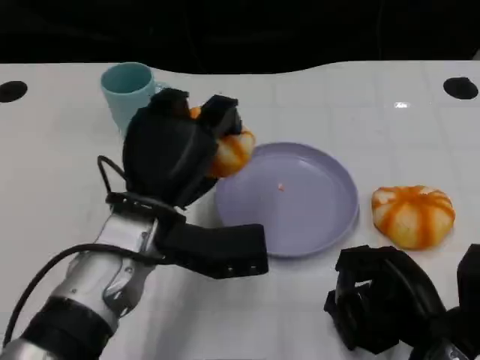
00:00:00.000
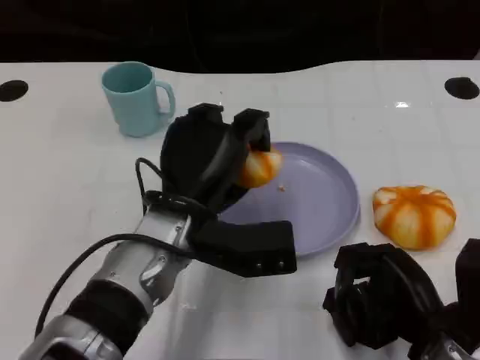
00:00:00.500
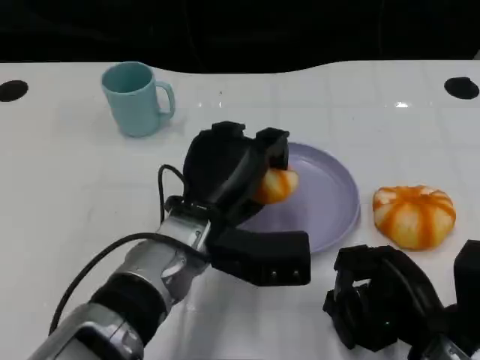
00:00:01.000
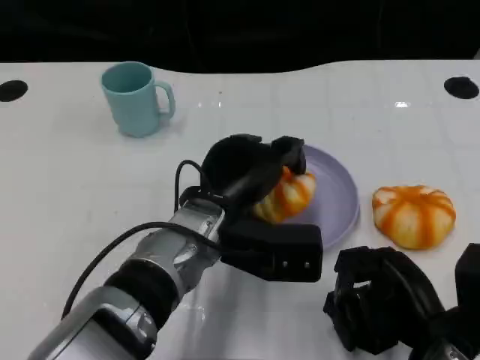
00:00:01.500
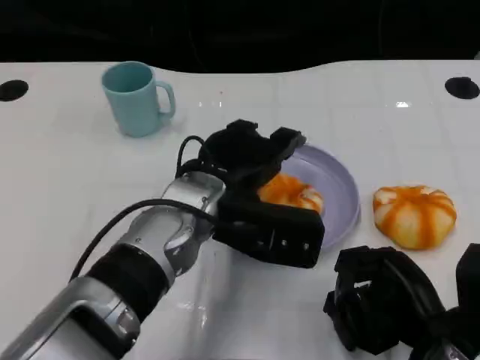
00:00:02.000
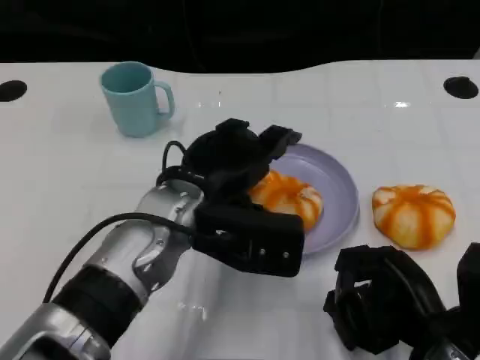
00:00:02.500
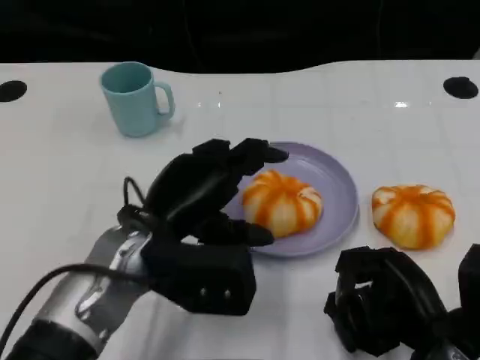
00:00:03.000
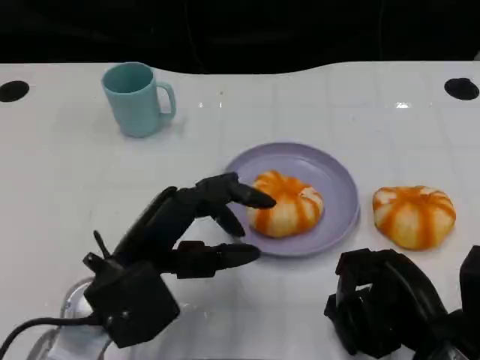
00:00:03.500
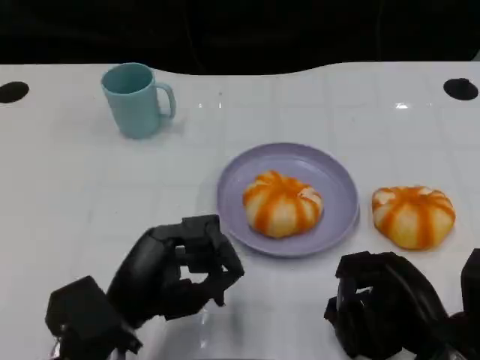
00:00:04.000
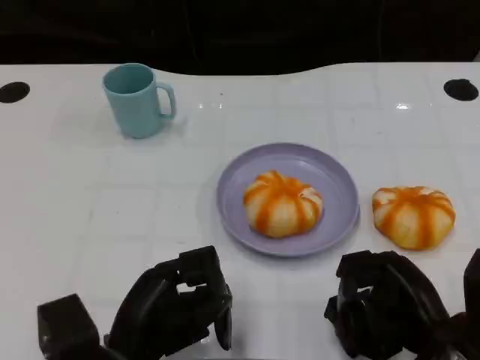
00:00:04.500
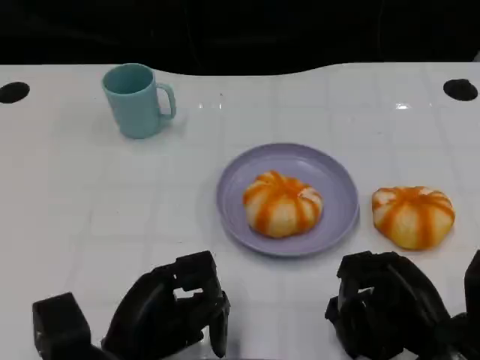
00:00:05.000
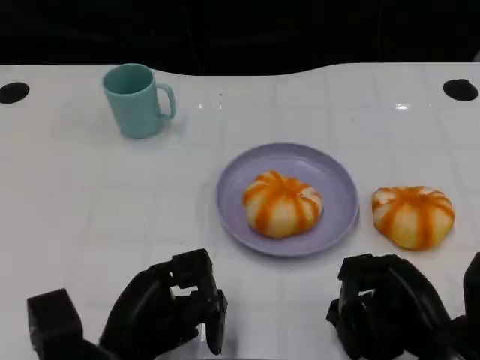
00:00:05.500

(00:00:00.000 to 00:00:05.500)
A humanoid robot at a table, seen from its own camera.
Task of the whole recording: Grasp the bread from the table and place it into the plate.
00:00:00.000 - 00:00:02.000: The left hand shifts approximately 5 cm to the right.
00:00:02.000 - 00:00:03.500: The left hand goes about 10 cm to the left and backward.
00:00:03.500 - 00:00:05.500: The left hand heads downward, covering roughly 5 cm.

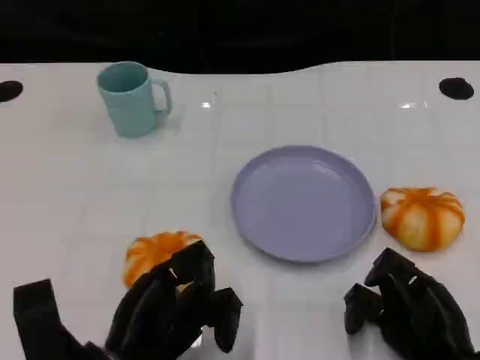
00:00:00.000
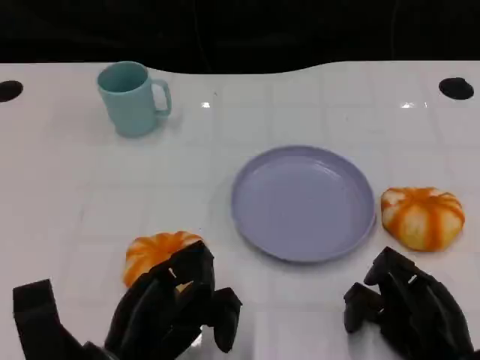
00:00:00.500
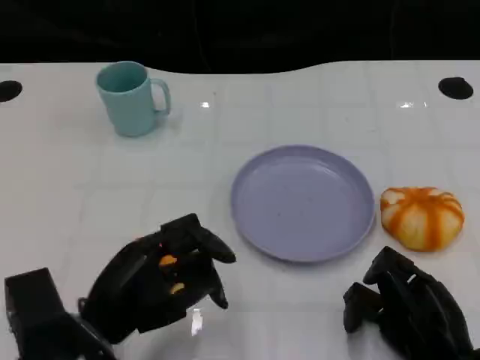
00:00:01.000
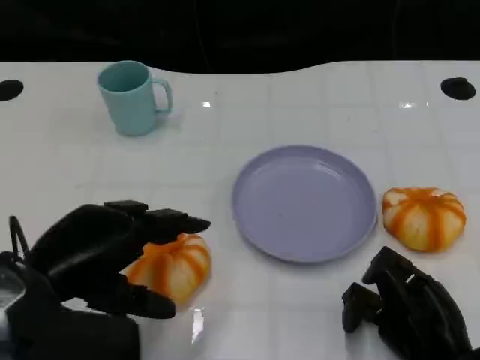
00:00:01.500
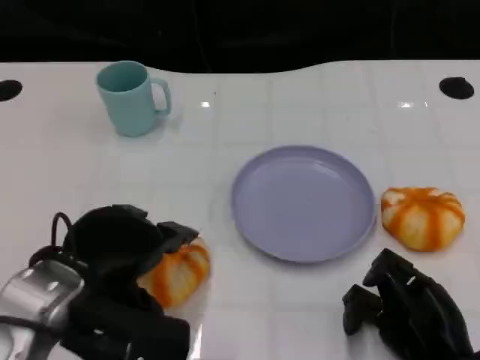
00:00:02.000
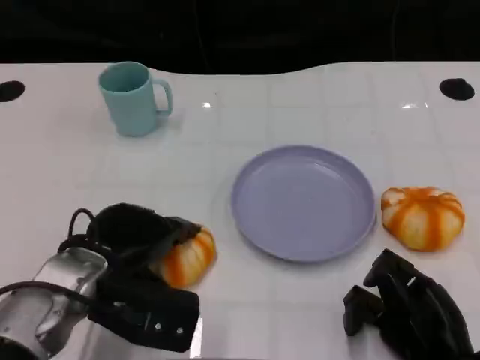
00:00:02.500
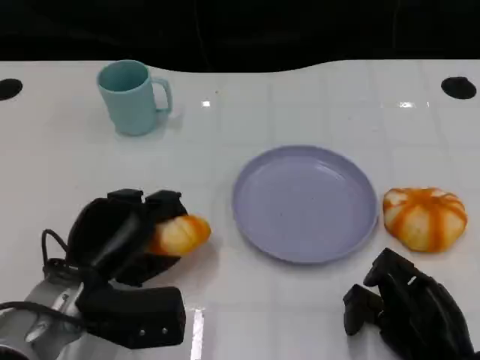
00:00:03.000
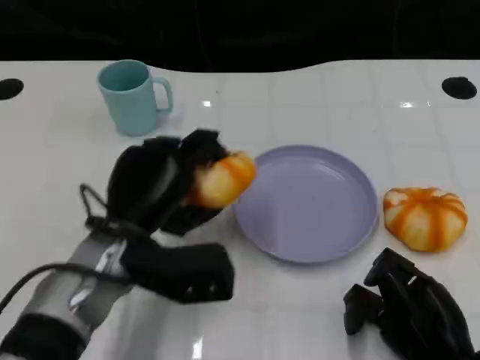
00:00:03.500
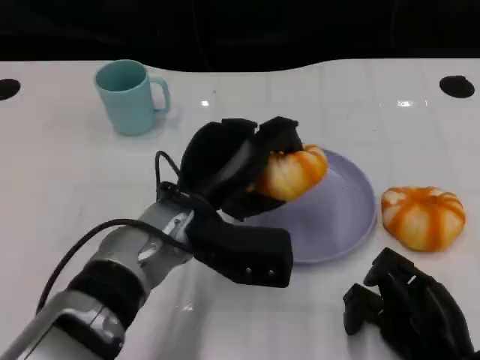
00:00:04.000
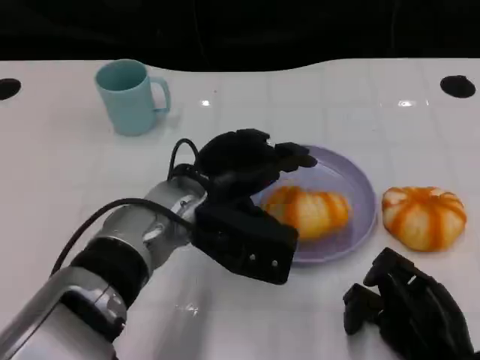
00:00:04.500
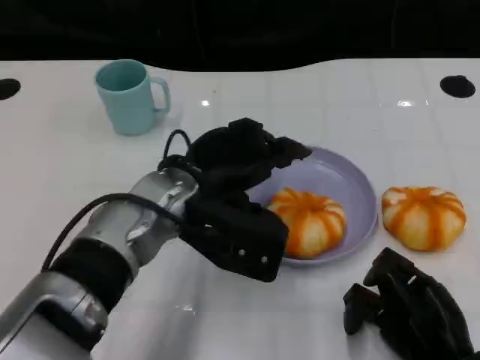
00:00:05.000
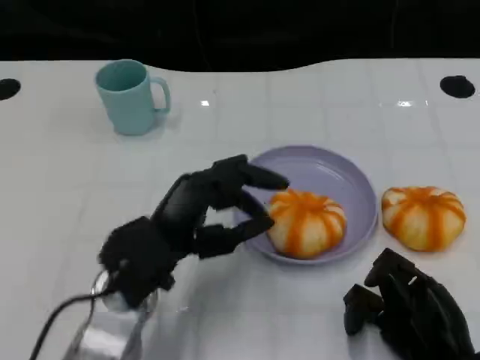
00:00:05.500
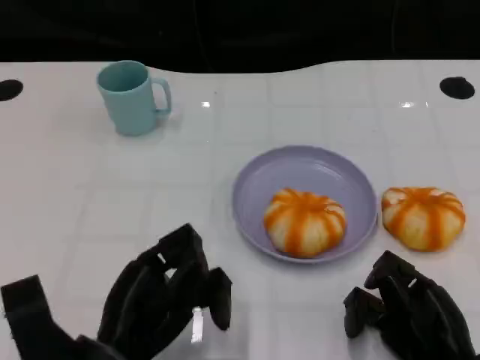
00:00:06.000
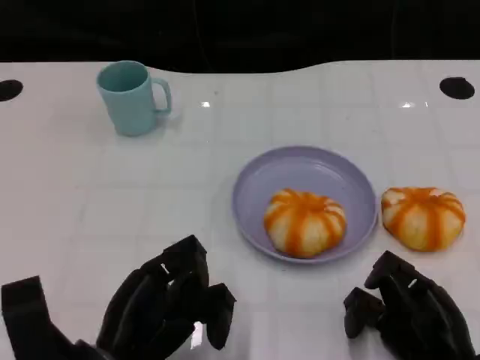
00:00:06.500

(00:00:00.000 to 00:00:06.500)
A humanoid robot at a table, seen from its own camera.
Task of the whole recording: Grasp the bread from the table and place it into the plate.
00:00:00.000 - 00:00:02.000: The left hand travels upward by about 10 cm.
00:00:02.000 - 00:00:04.500: The left hand shifts about 15 cm to the right and forward.
00:00:04.500 - 00:00:06.500: The left hand moves backward, to the left and downward, about 20 cm.

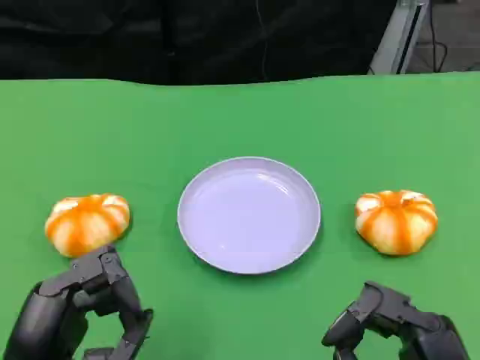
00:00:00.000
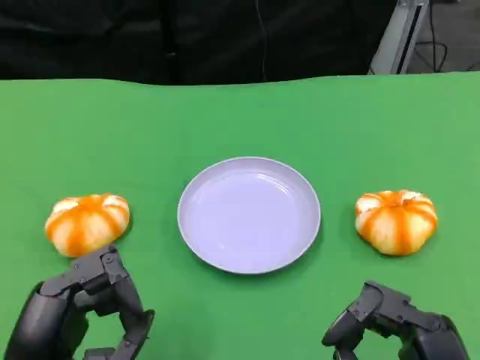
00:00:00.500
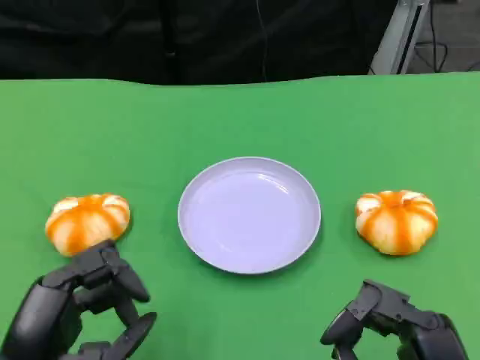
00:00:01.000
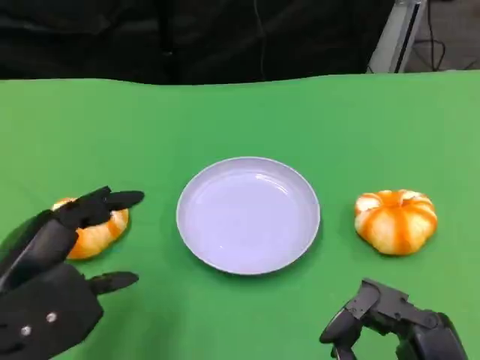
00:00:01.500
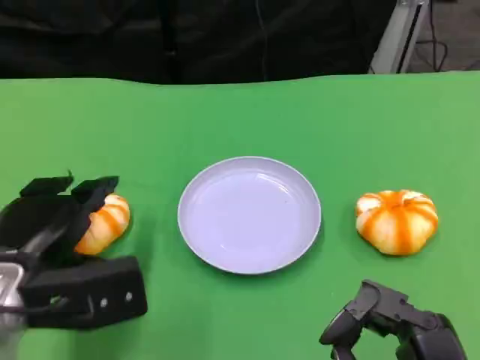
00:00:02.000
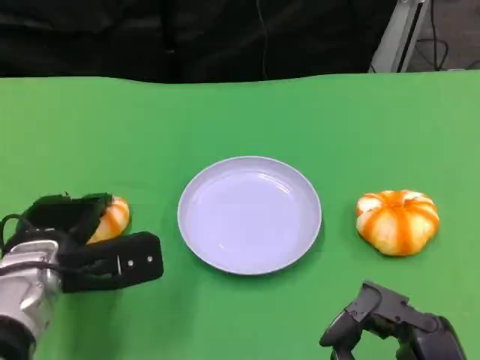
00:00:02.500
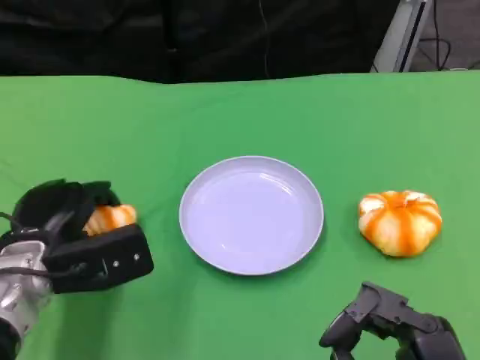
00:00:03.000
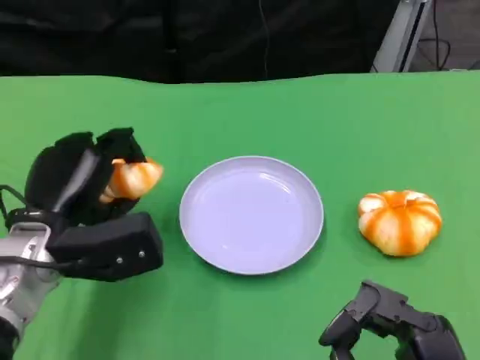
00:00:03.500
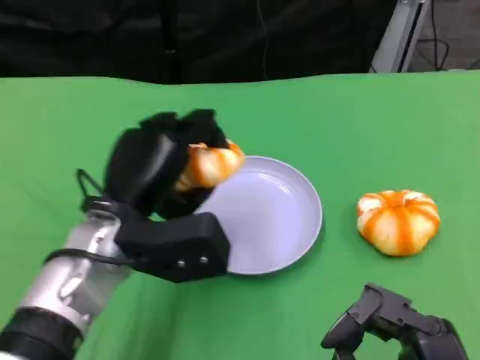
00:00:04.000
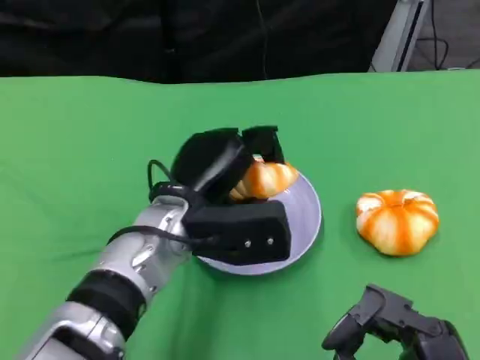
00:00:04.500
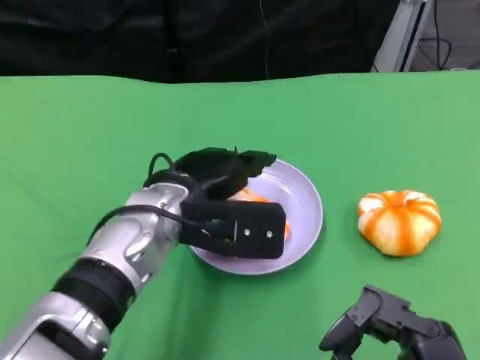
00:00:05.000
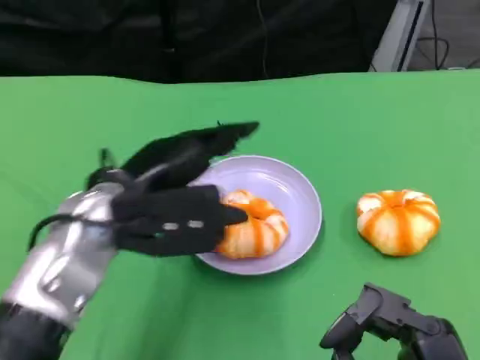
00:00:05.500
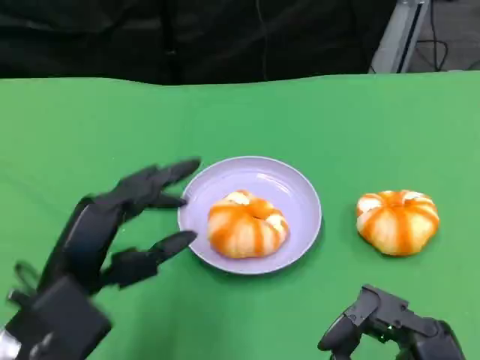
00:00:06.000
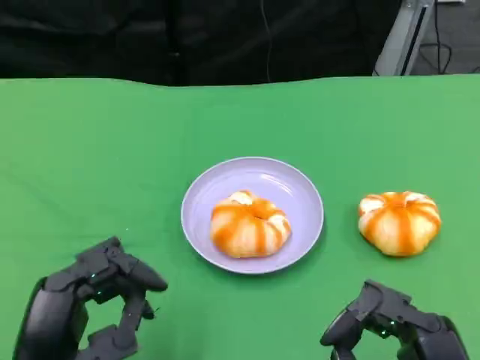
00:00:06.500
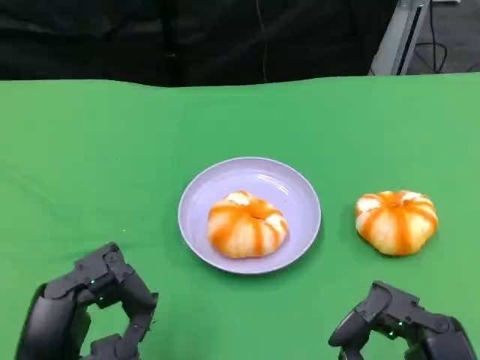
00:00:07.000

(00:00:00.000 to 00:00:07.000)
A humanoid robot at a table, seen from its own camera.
Task of the whole recording: Grasp the bread from the table and place it into the plate.
00:00:00.000 - 00:00:02.000: The left hand shifts approximately 10 cm forward.
00:00:02.000 - 00:00:03.500: The left hand ends up some 5 cm from where it was.
00:00:03.500 - 00:00:05.000: The left hand heads to the right, covering roughly 10 cm.
00:00:05.000 - 00:00:07.000: The left hand travels backward and to the left by some 20 cm.

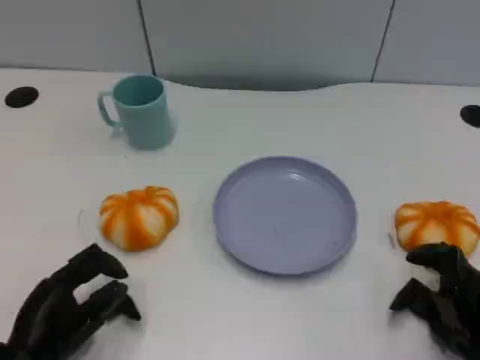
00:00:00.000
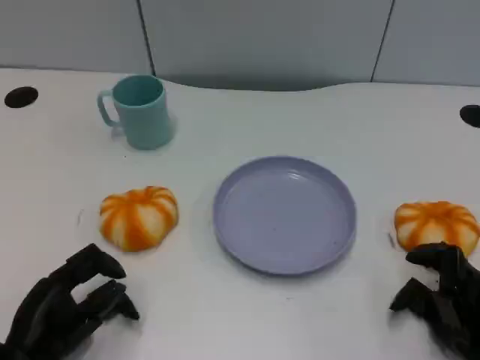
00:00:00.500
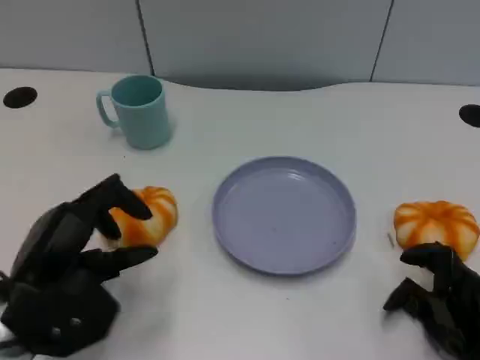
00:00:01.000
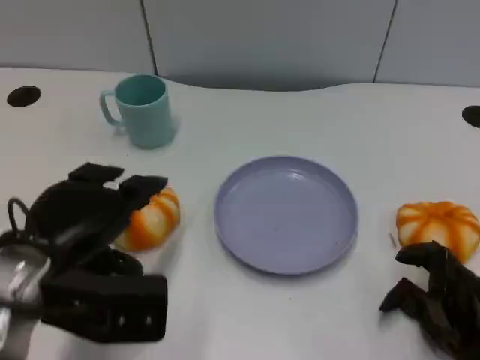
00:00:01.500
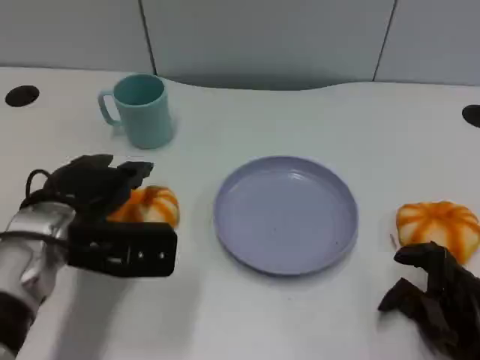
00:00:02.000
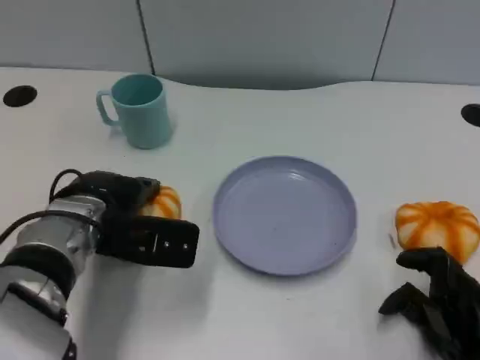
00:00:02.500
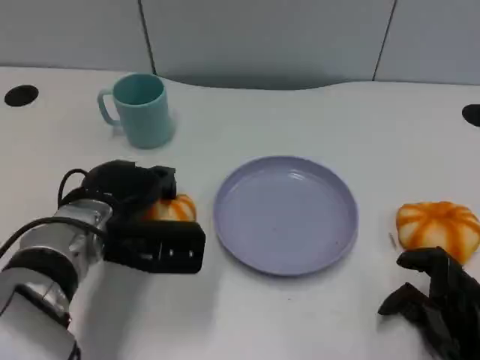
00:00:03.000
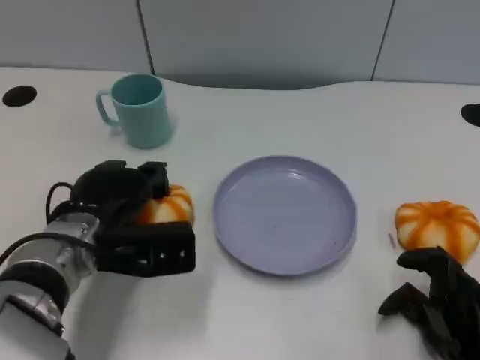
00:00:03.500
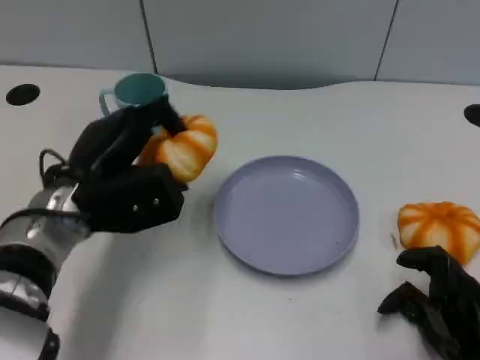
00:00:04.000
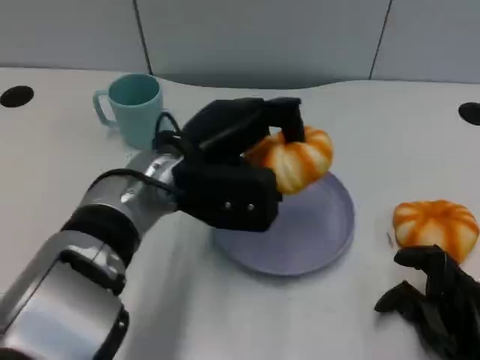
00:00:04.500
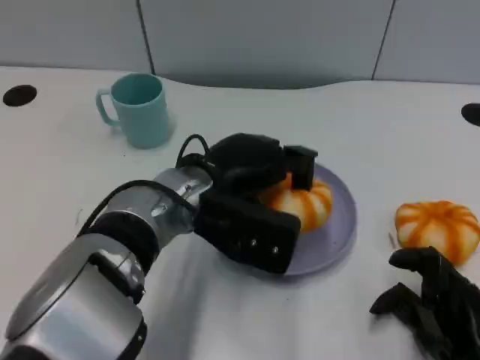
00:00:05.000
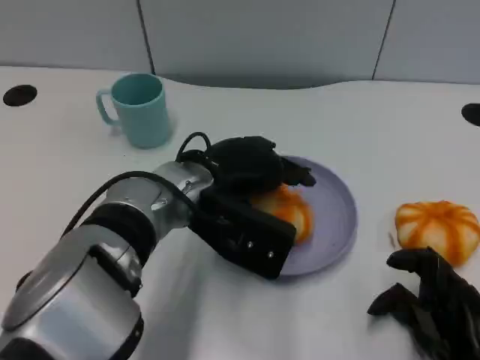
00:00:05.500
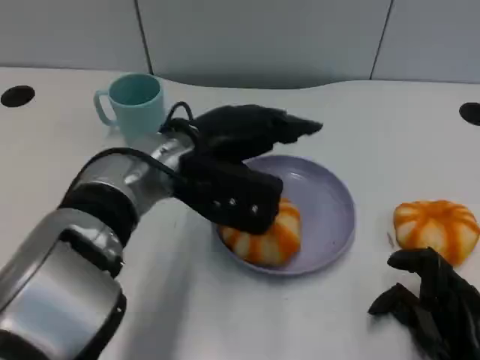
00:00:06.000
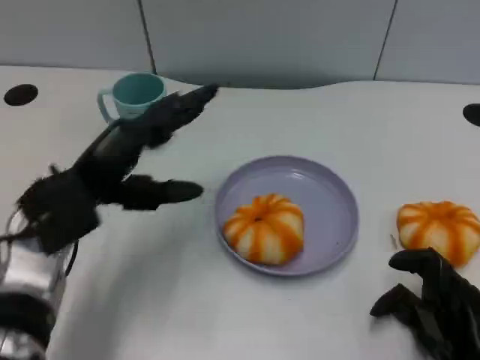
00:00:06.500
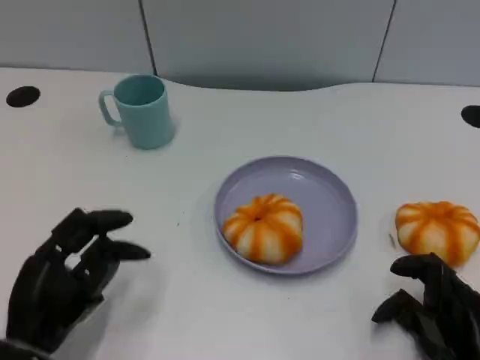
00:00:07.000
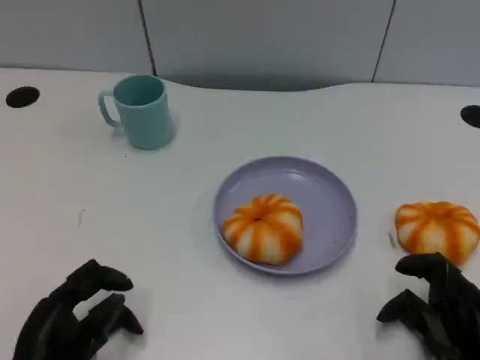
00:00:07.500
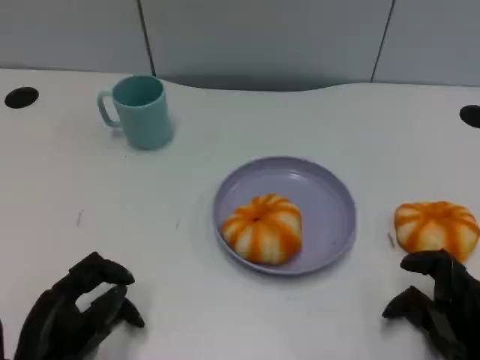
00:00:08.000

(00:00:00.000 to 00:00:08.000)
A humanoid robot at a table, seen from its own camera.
Task of the whole recording: Grasp the bread from the table and place it into the plate.
00:00:00.000 - 00:00:02.000: The left hand heads forward, upward and to the right, covering approximately 15 cm.
00:00:04.000 - 00:00:06.000: The left hand heads to the right, covering some 10 cm.
00:00:06.000 - 00:00:08.000: The left hand moves downward, backward and to the left, about 25 cm.
